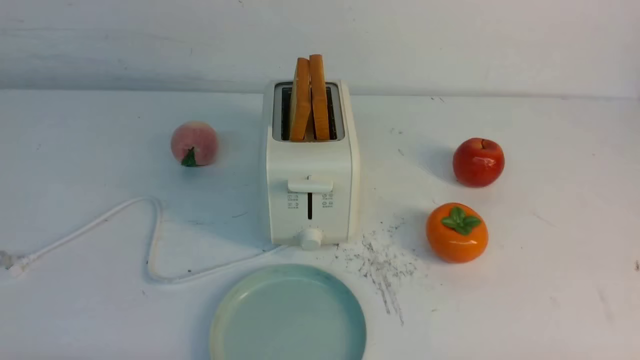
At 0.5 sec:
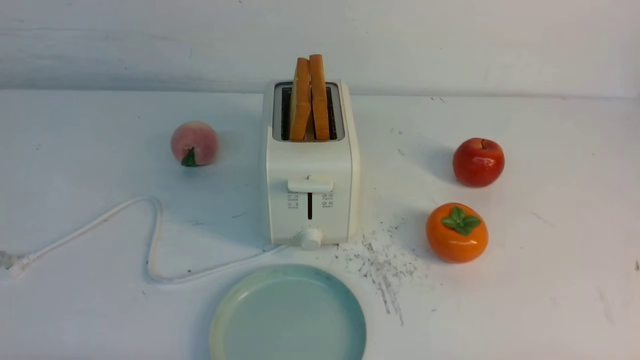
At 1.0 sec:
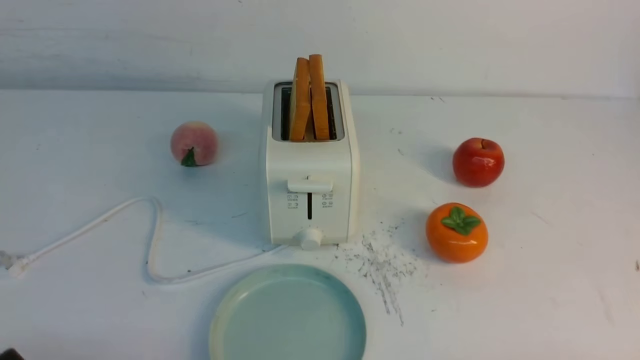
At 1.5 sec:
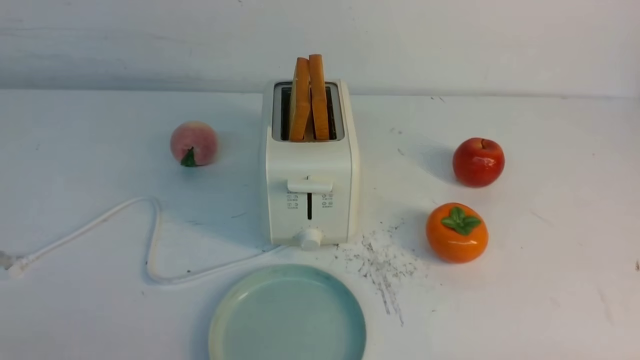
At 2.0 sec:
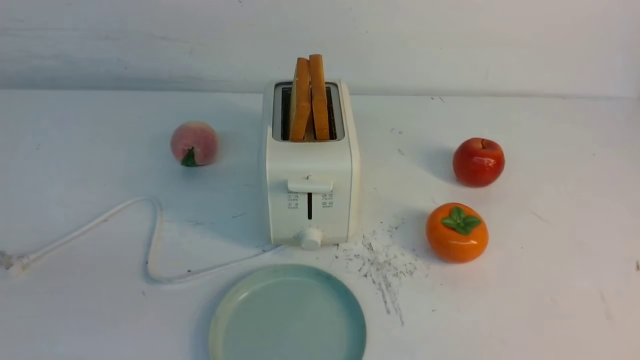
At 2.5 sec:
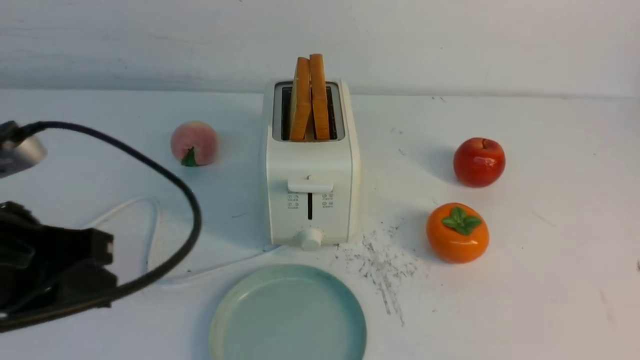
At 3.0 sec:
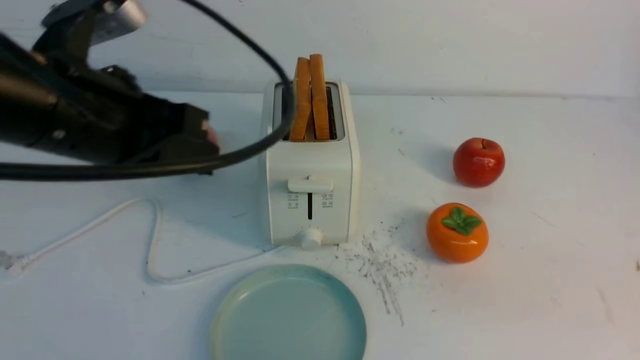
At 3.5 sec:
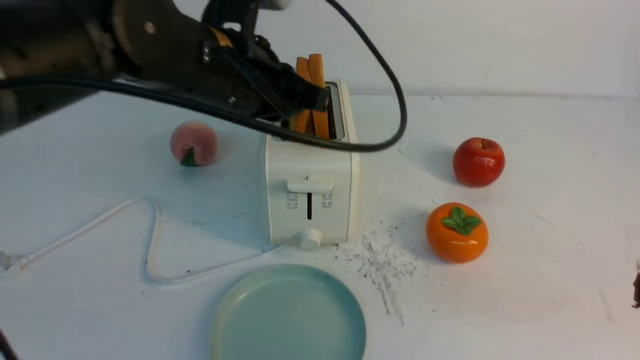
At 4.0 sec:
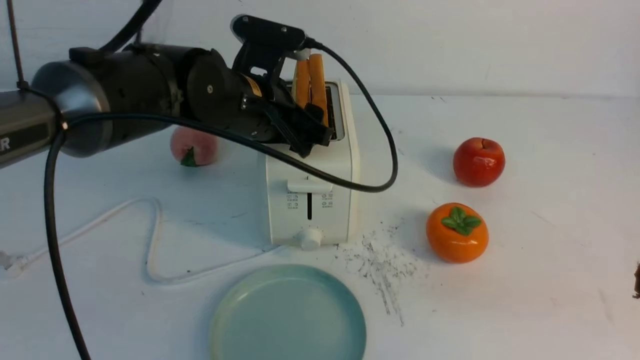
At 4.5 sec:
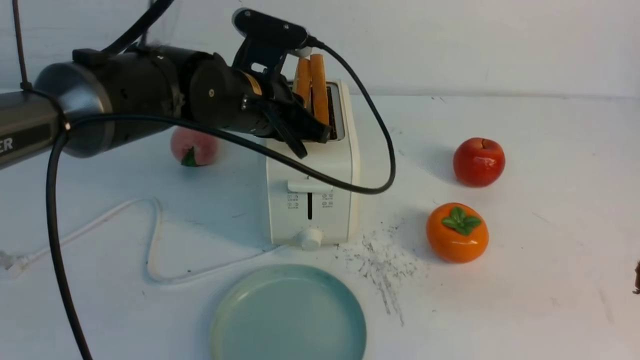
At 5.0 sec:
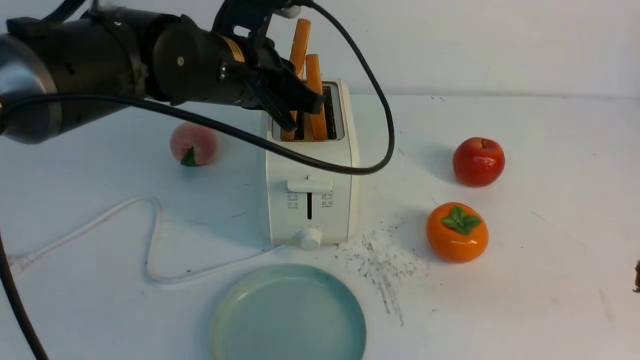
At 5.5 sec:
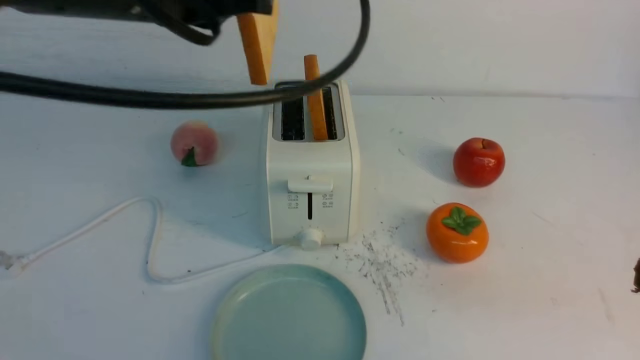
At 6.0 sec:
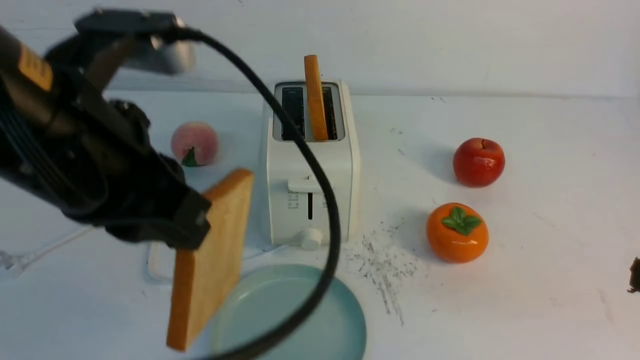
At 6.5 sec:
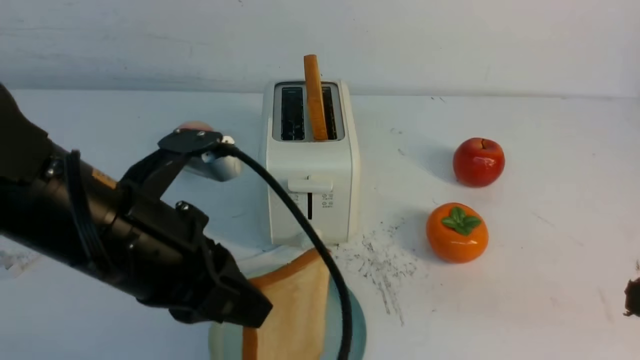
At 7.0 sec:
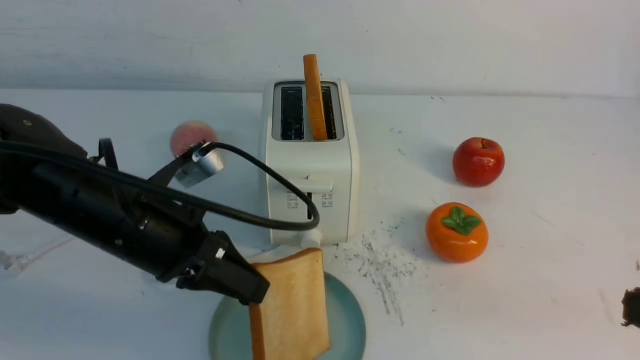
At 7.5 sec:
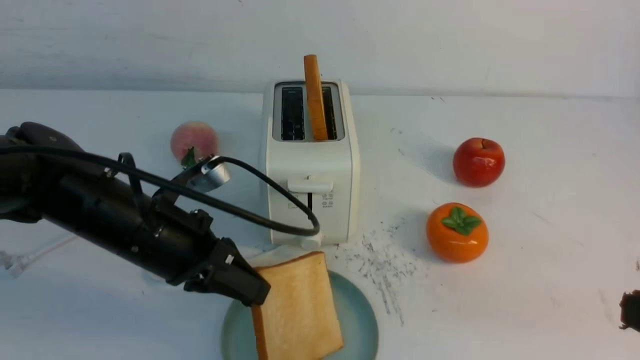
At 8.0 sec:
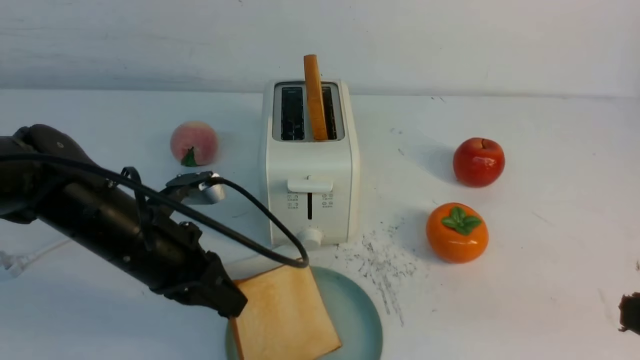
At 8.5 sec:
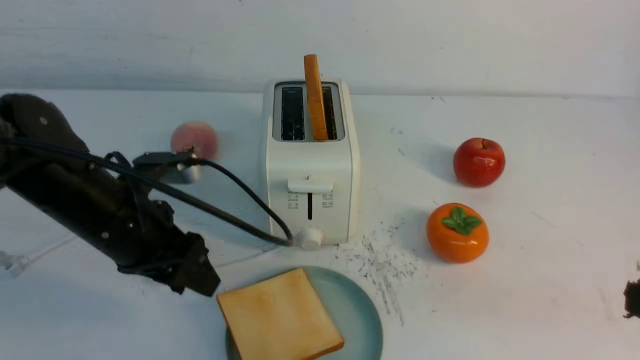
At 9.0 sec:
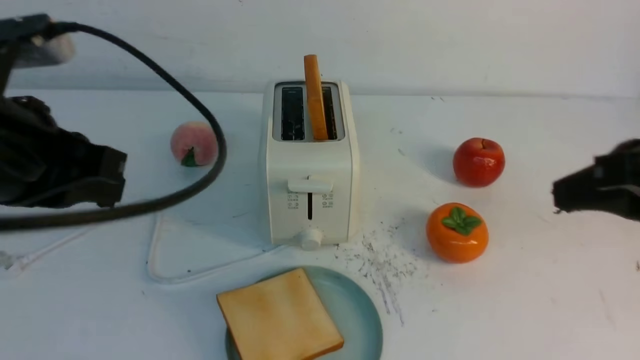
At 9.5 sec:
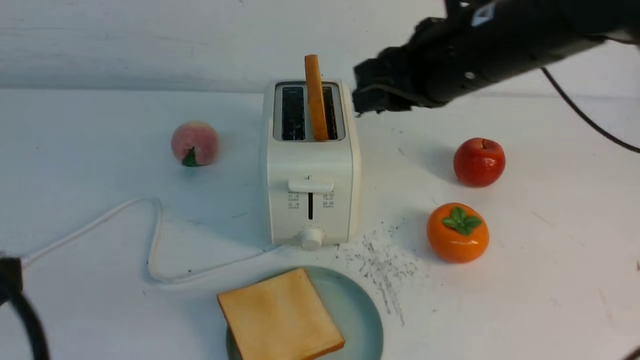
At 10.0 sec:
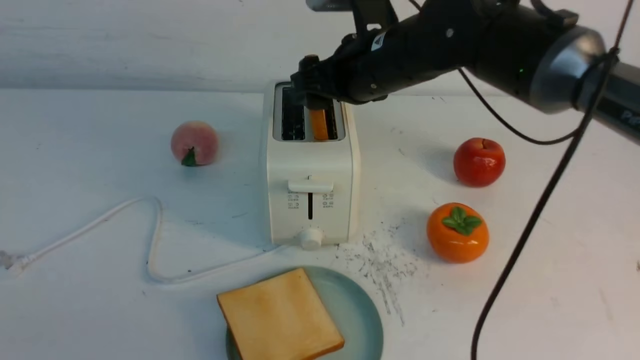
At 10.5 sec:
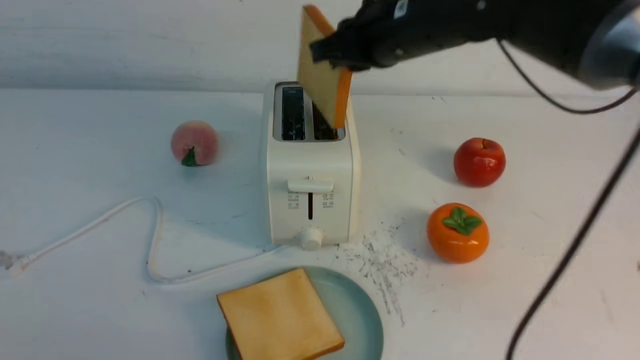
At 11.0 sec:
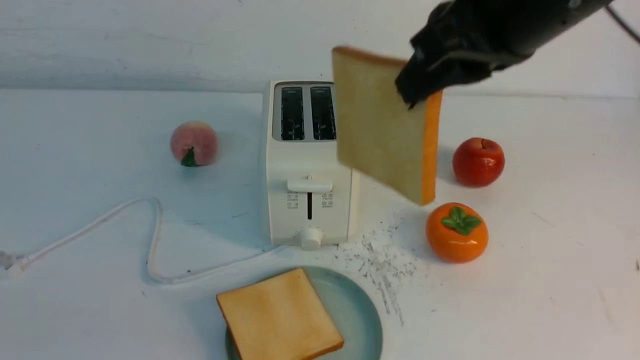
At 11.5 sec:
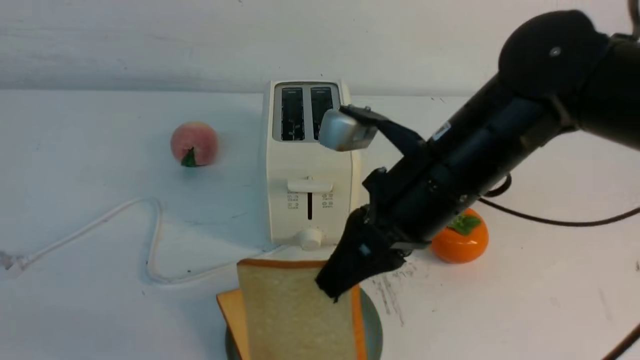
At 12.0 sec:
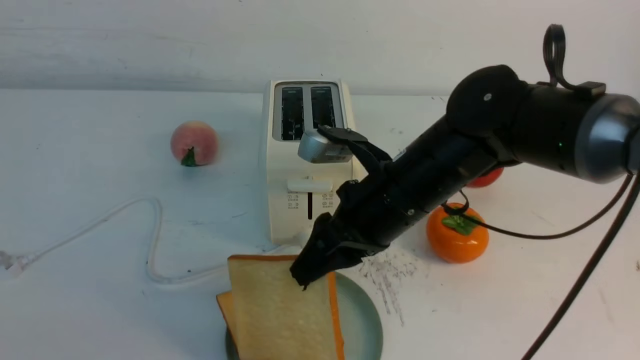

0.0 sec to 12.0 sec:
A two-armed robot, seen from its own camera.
Task of the whole recording: take toasted bread from bread machine on white table place on plate.
Step, 0.0 sec to 5.0 sec: use the left arm to take out a slice of bread.
Step, 5.5 sec to 8.5 sec: use the left arm to put a slice of bread into the empty plate.
Step, 9.0 sec to 10.5 sec: use the right arm to take out a slice of bread.
2.0 sec to 4.0 sec: The left gripper shifts some 35 cm forward and to the right, and opens its fingers. The right gripper travels upward by approximately 10 cm, and closes up.
4.0 sec to 6.0 sec: The left gripper is displaced backward and upward by approximately 20 cm, and closes its fingers.
6.0 sec to 8.0 sec: The left gripper travels downward and forward by about 20 cm.
8.0 sec to 10.0 sec: The left gripper goes about 30 cm backward and upward, and opens, then closes again. The right gripper shifts approximately 35 cm forward and to the left, and opens.
10.0 sec to 12.0 sec: The right gripper heads backward and downward, covering about 10 cm, and closes, then reopens.

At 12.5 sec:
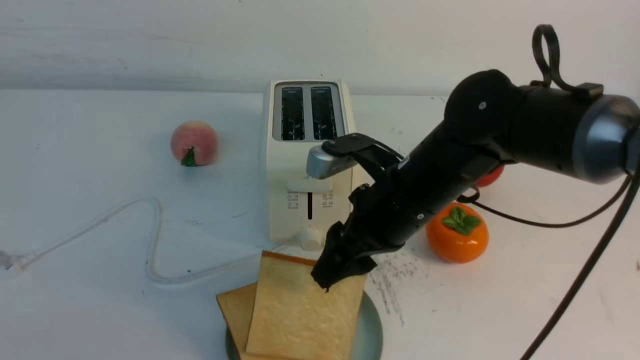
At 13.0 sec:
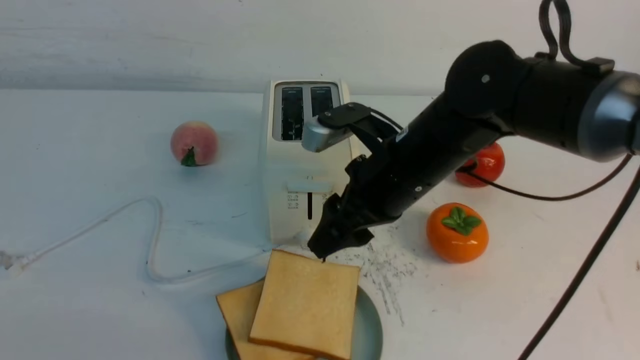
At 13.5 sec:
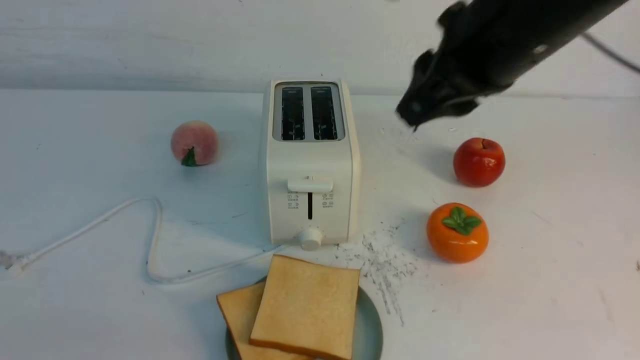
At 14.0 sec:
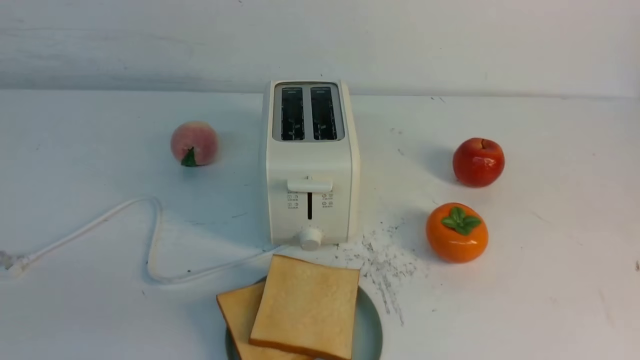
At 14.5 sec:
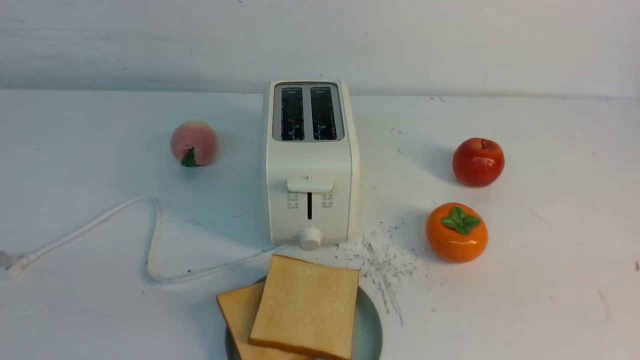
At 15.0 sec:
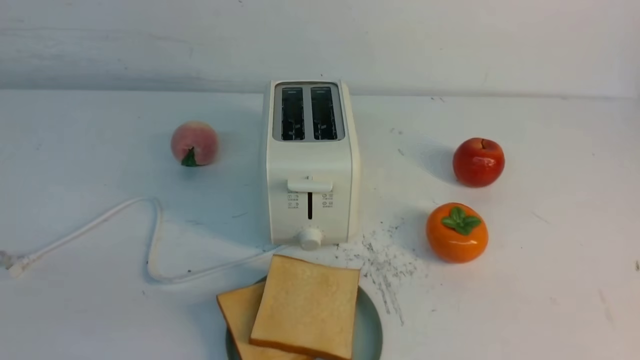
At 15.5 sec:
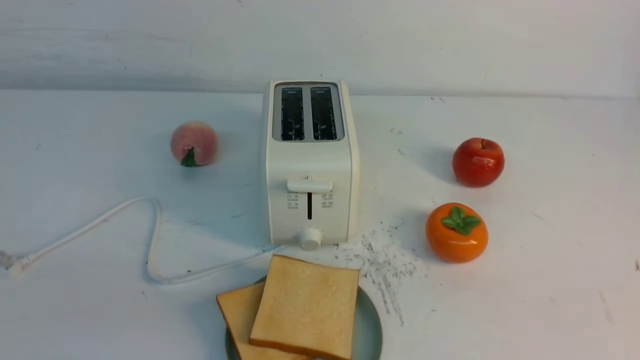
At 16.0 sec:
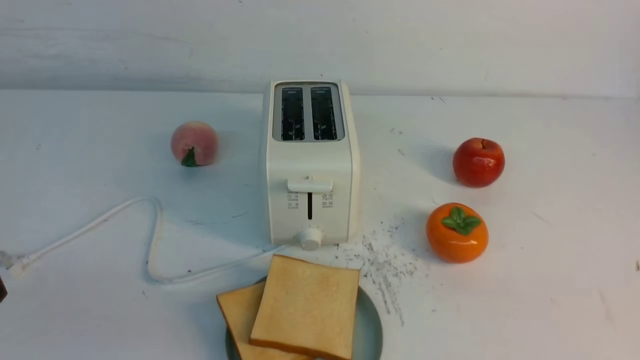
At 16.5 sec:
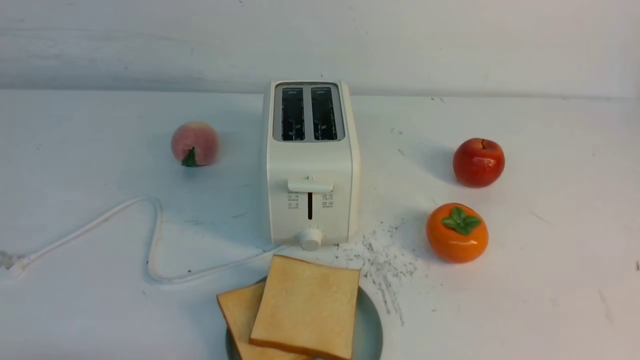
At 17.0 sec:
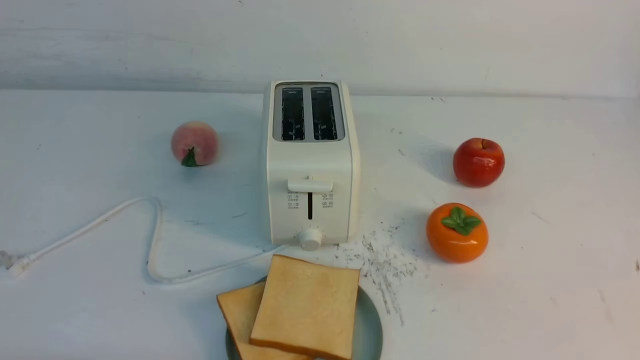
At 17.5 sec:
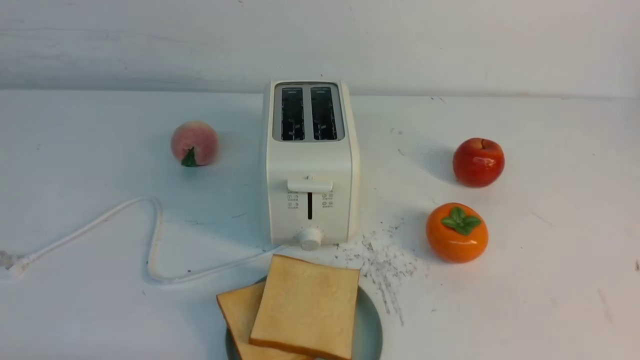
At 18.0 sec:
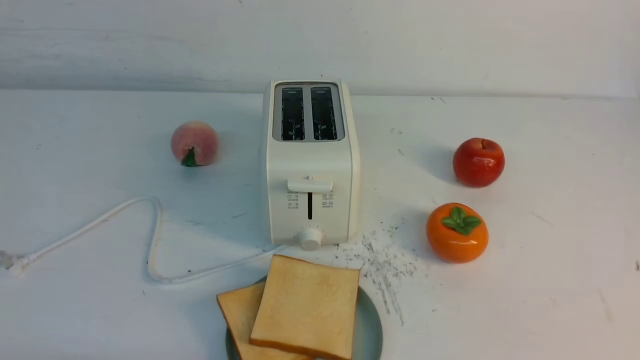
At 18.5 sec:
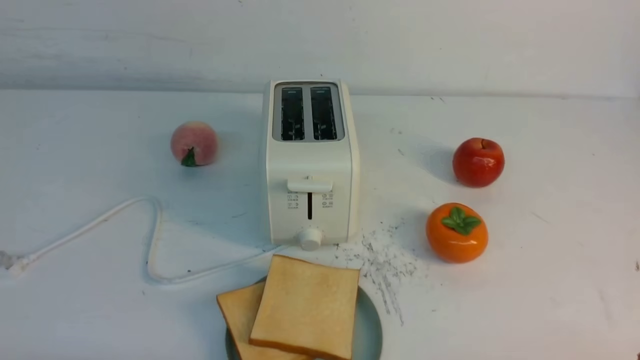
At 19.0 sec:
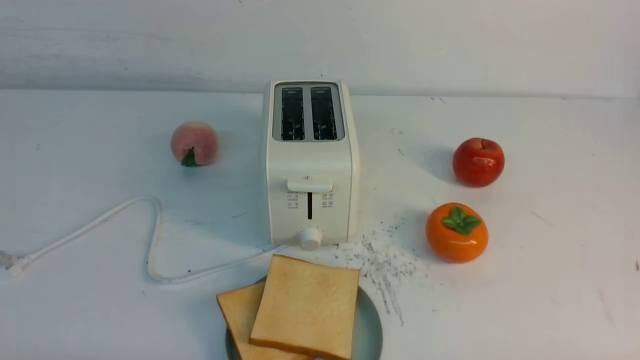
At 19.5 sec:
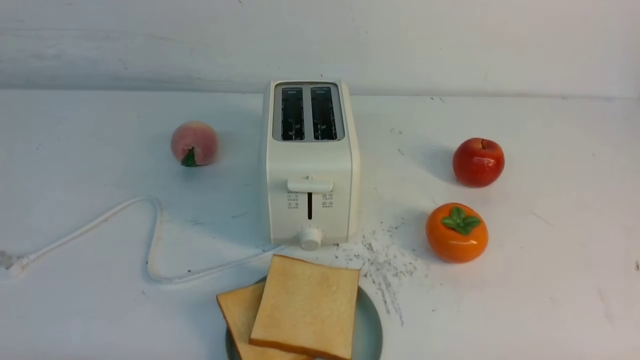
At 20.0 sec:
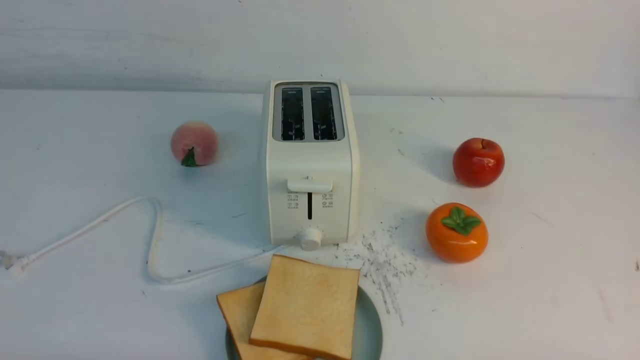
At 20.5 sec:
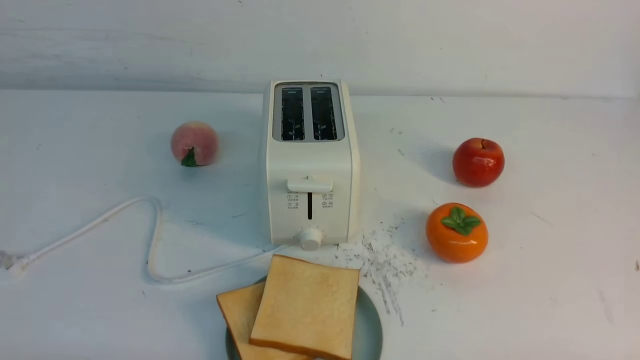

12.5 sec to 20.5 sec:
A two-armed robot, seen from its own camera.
Task of the whole recording: take toasted bread from bread machine on white table place on plate.
12.5 sec to 14.5 sec: The right gripper is displaced backward and to the right by about 35 cm, and closes.
